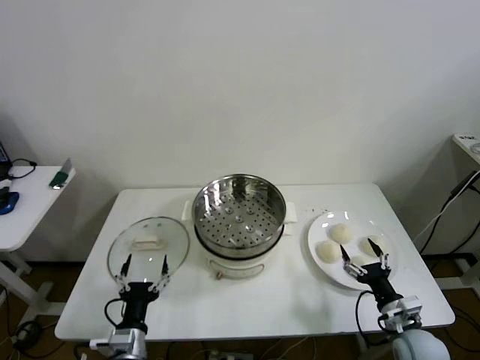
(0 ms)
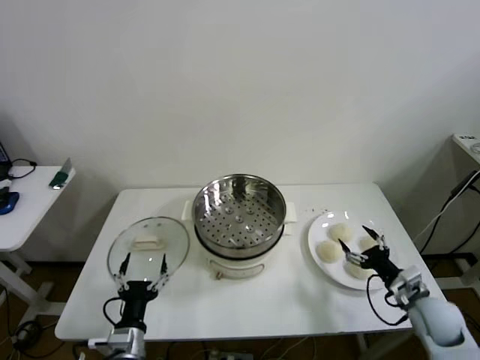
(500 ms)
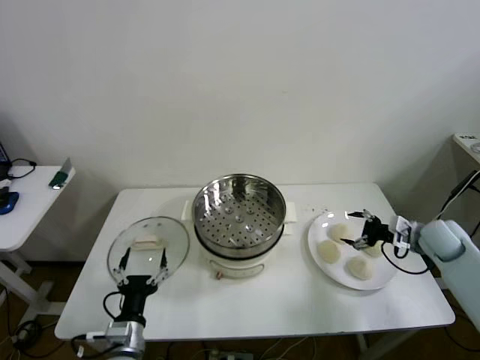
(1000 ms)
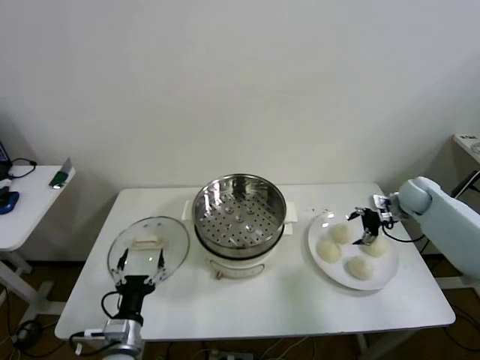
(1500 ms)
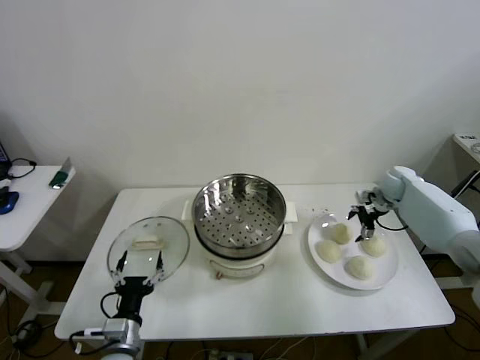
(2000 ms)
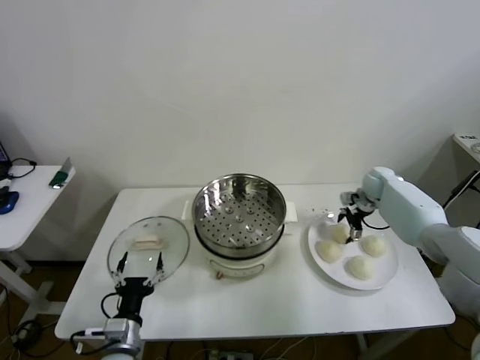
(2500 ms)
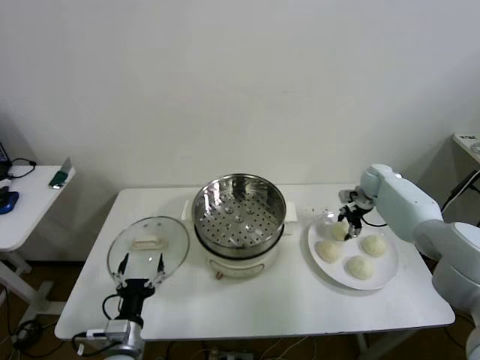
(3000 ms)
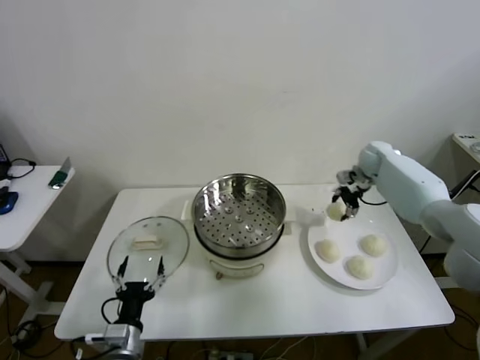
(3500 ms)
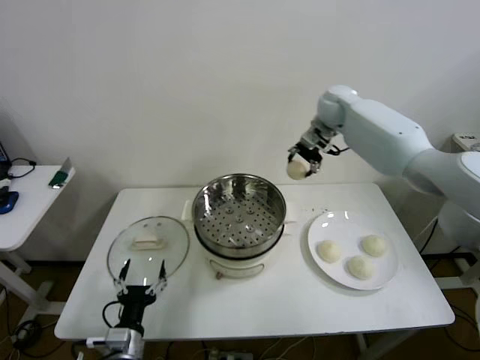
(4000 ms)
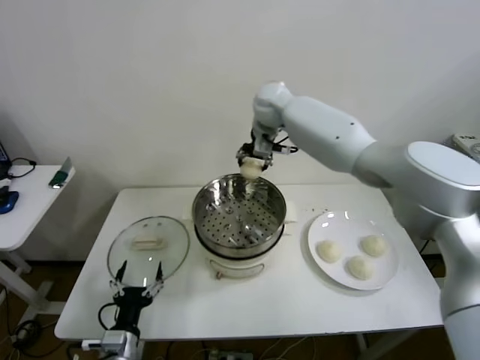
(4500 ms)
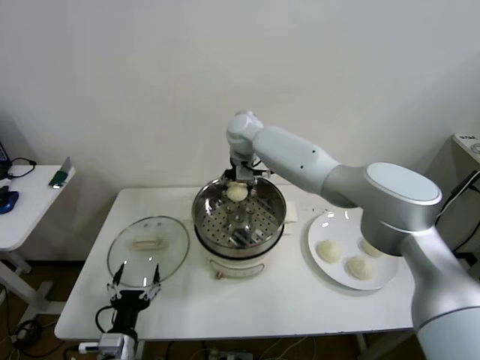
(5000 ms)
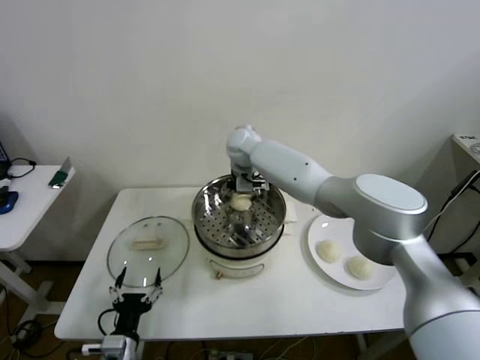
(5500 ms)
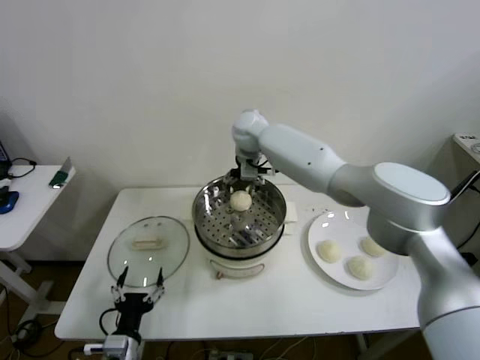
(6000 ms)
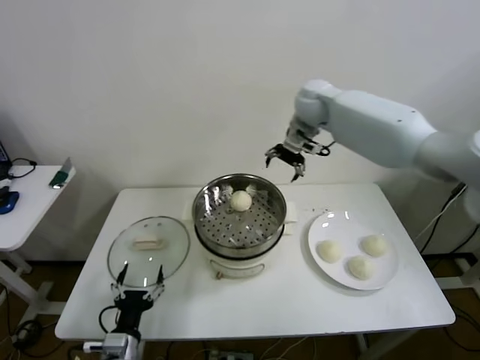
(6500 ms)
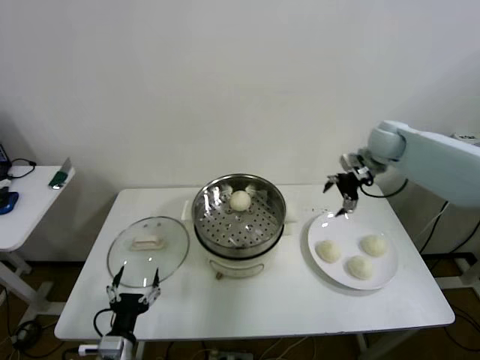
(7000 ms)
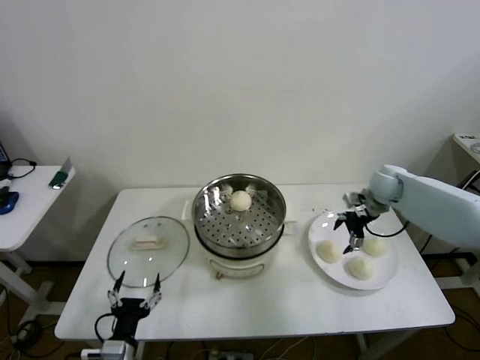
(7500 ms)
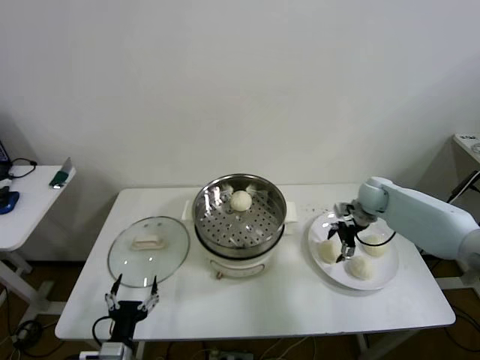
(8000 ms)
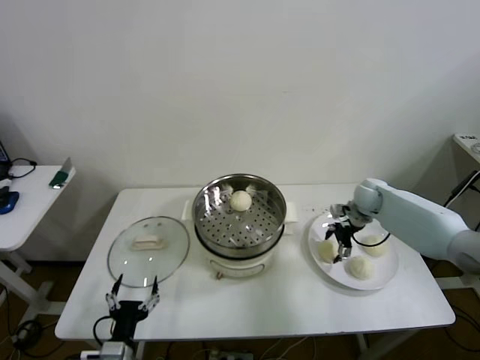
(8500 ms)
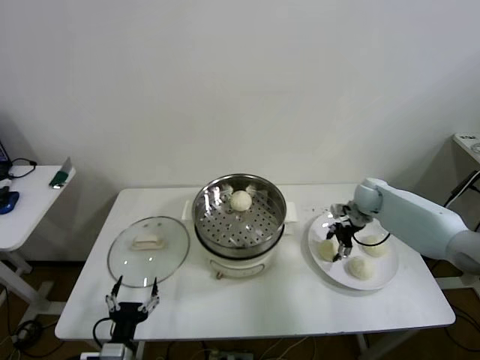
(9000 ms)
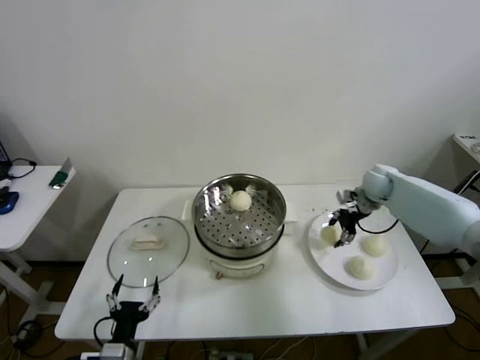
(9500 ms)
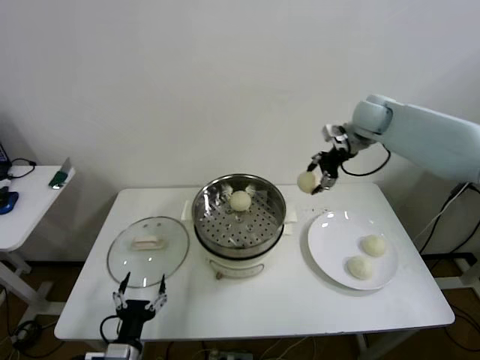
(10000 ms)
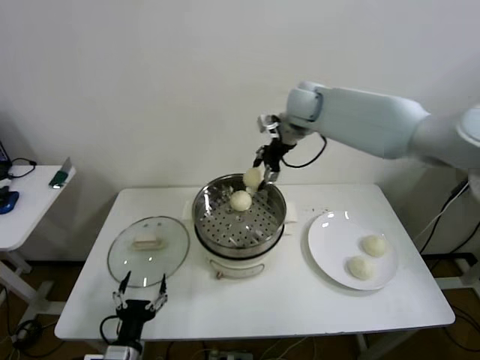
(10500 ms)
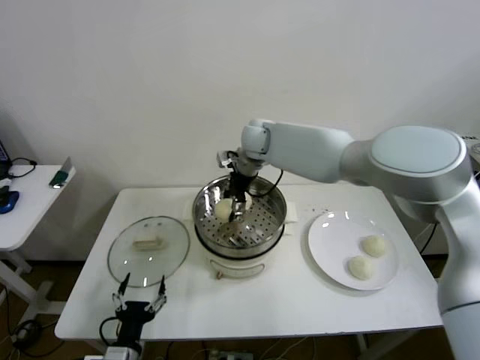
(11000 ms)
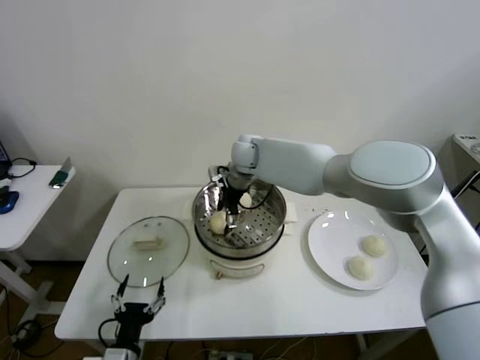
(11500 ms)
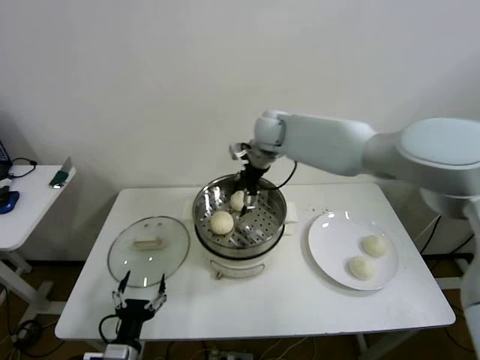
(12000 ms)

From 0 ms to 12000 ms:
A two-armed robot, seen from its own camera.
Step, from 0 ms to 2500 ms: Grasp the baozi in the plate with right gripper.
Step, from 3000 ms to 6000 ms: Place the baozi on the steamer with right gripper.
Step, from 6500 ms to 8500 ms: Grasp the baozi in the plate with right gripper.
Step, from 9000 ms to 11500 ms: Place the baozi on the steamer with right gripper.
From 2000 ms to 4000 ms: The right gripper heads to the left and upward, covering approximately 35 cm, and closes up.
From 4000 ms to 6000 ms: The right gripper shifts some 15 cm to the left, and opens.
From 6000 ms to 8000 ms: The right gripper goes approximately 40 cm to the right and downward.
From 8000 ms to 10000 ms: The right gripper heads upward, covering approximately 25 cm, and closes.
From 10000 ms to 12000 ms: The right gripper shifts about 20 cm to the left, and opens its fingers.

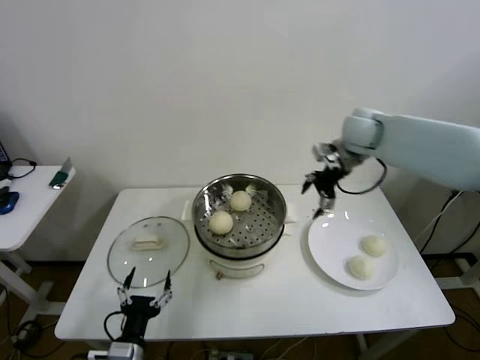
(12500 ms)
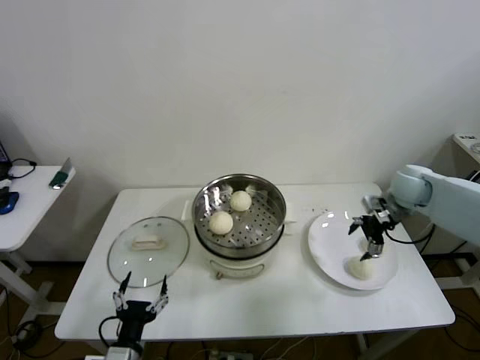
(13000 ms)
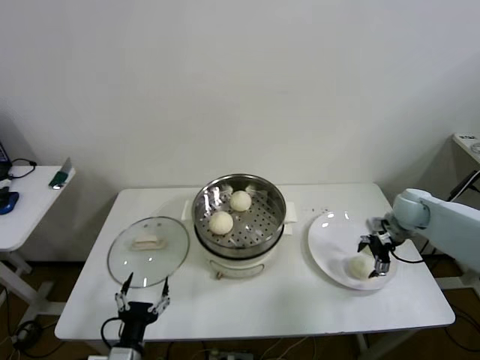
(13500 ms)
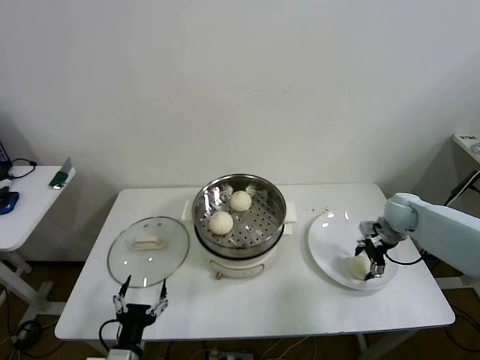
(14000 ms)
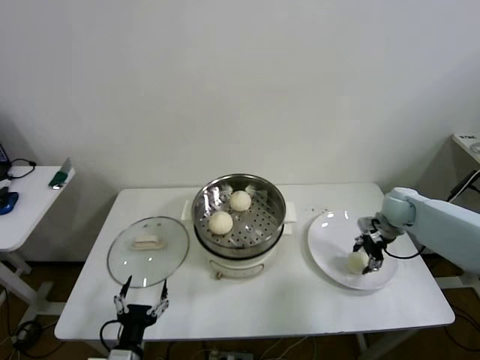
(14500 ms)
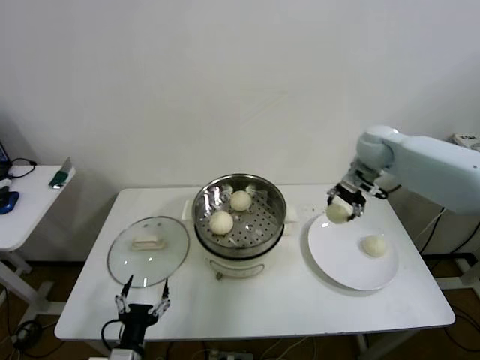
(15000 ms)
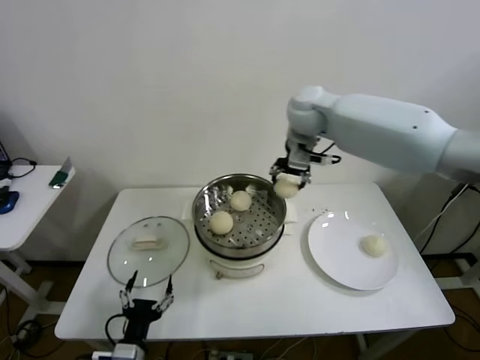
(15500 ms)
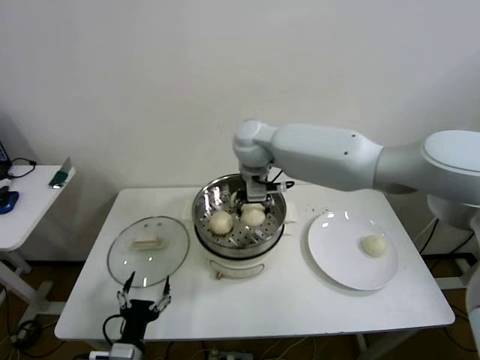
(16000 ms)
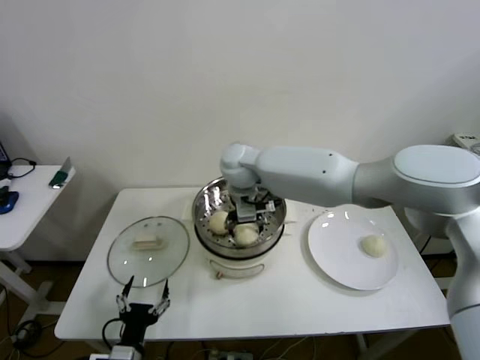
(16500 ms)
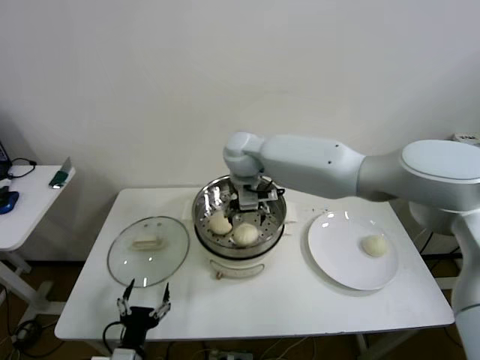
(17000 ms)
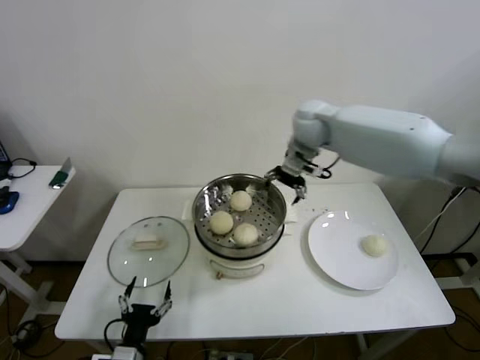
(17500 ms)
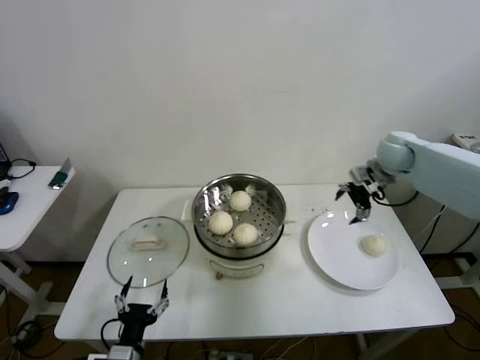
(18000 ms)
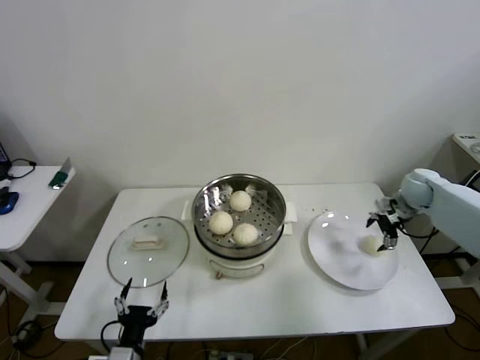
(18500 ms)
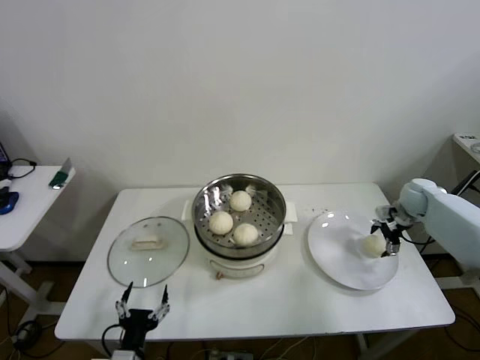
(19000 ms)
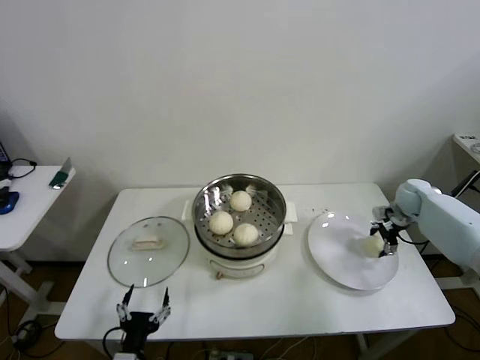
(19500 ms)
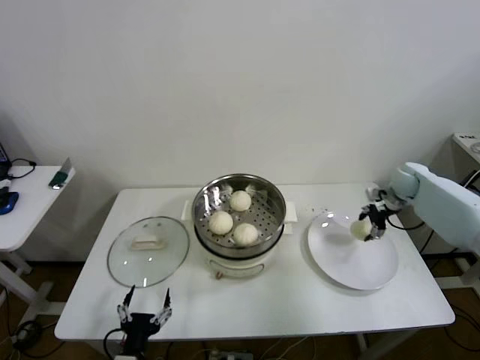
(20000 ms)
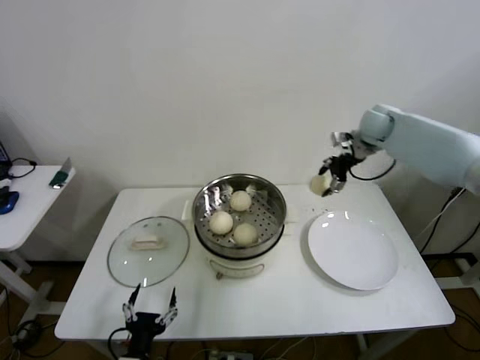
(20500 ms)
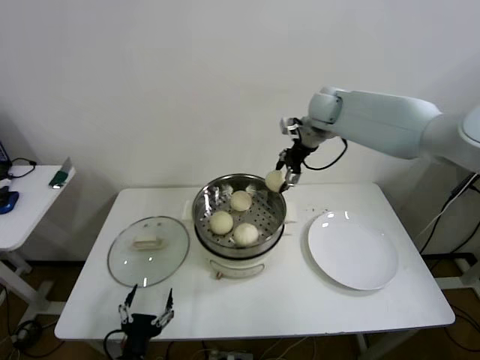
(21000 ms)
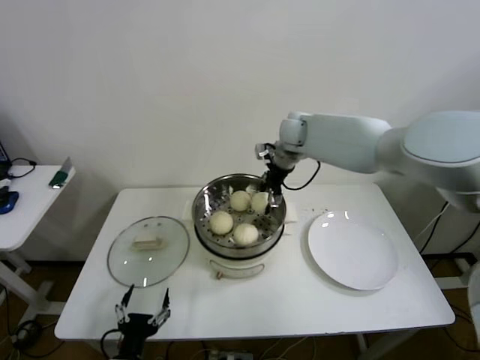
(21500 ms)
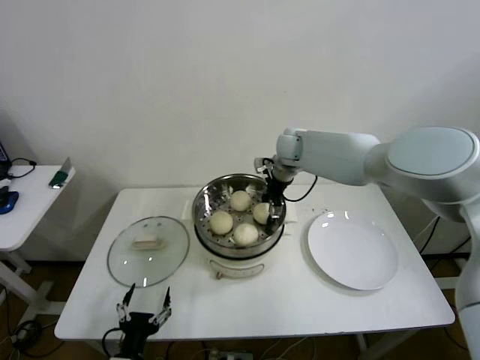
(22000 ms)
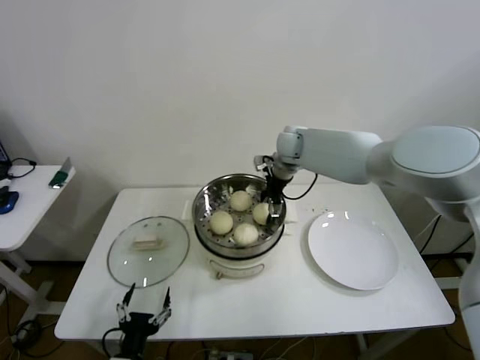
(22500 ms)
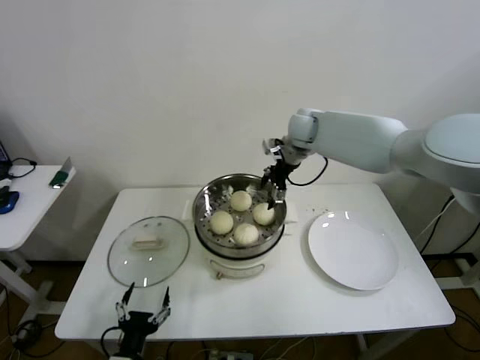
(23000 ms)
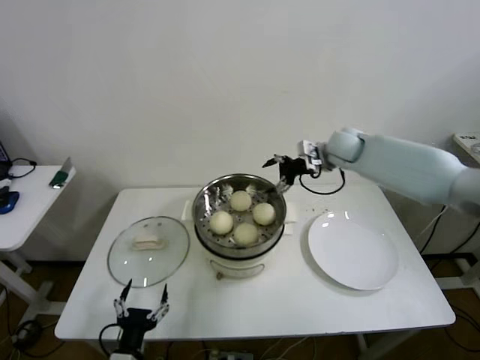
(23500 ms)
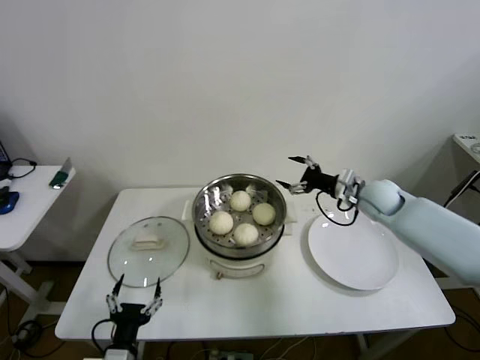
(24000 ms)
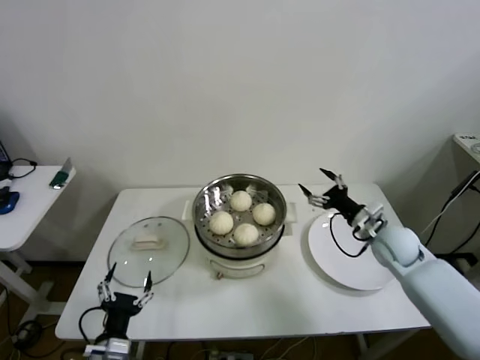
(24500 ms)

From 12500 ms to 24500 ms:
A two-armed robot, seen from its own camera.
Step, from 12500 ms to 14000 ms: Grasp the baozi in the plate with right gripper.
Step, from 14500 ms to 17000 ms: Place the baozi on the steamer with right gripper.
Step, from 17500 ms to 19500 ms: Grasp the baozi in the plate with right gripper.
Step, from 20000 ms to 22500 ms: Place the baozi on the steamer with right gripper.
From 12500 ms to 14500 ms: The right gripper is displaced downward and to the right by approximately 20 cm, and closes.
From 14500 ms to 16500 ms: The right gripper moves to the left, roughly 40 cm, and opens.
From 16500 ms to 18500 ms: The right gripper goes some 50 cm to the right, and opens up.
From 18500 ms to 20500 ms: The right gripper goes roughly 20 cm upward, to the left and forward, and closes.
From 20500 ms to 22500 ms: The right gripper is displaced to the left by roughly 20 cm, and opens up.
From 22500 ms to 24500 ms: The right gripper moves to the right, backward and downward, approximately 35 cm.

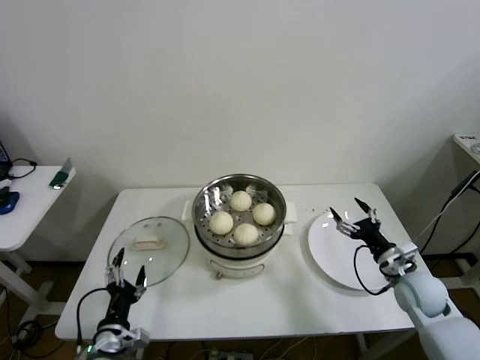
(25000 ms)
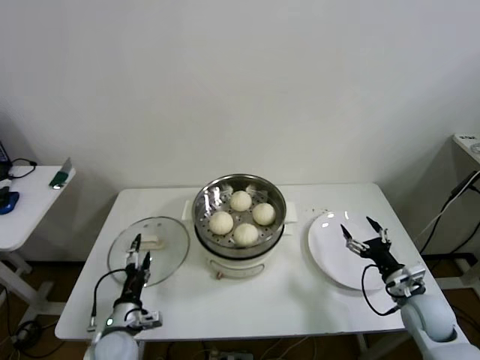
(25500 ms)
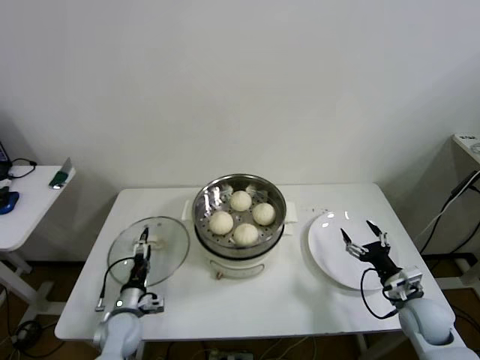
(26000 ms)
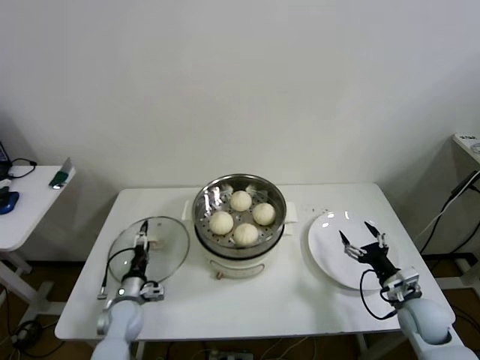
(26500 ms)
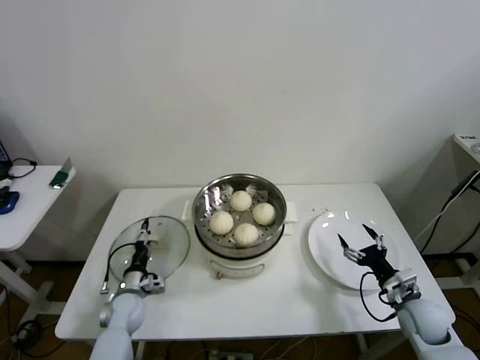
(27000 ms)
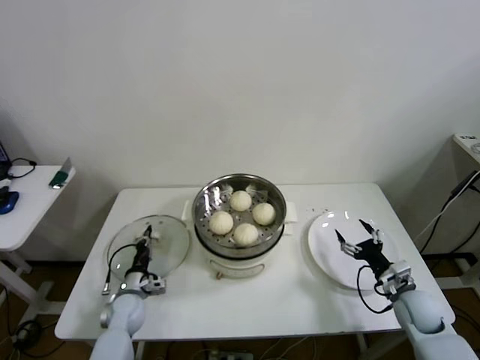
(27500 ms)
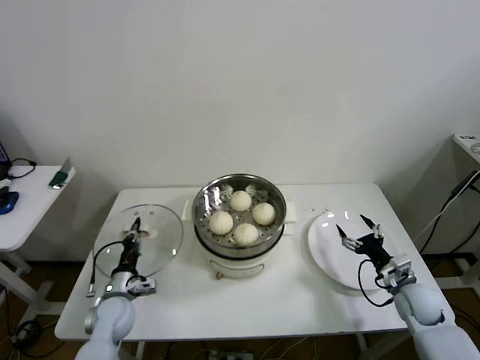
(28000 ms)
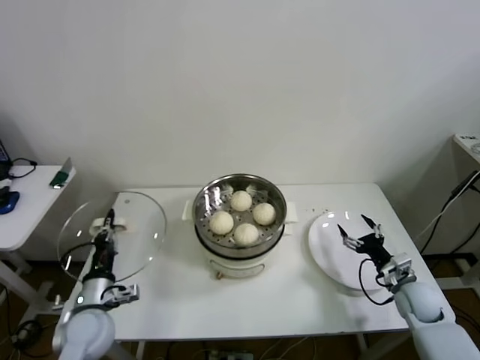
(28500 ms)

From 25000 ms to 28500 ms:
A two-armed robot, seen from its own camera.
Step, from 25000 ms to 27500 ms: Grasp the pot lid with left gripper.
From 25000 ms to 27000 ms: The right gripper moves downward, about 5 cm. The left gripper is displaced forward and downward by roughly 20 cm.
From 27000 ms to 28500 ms: The left gripper shifts some 15 cm upward and backward, and closes up.
